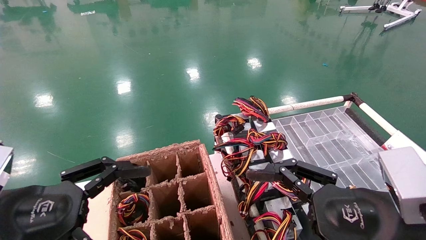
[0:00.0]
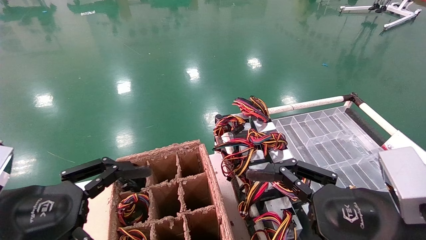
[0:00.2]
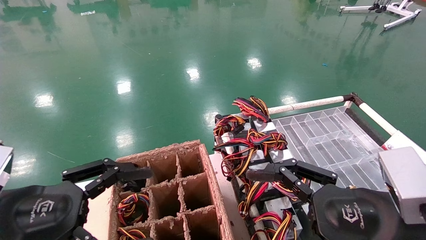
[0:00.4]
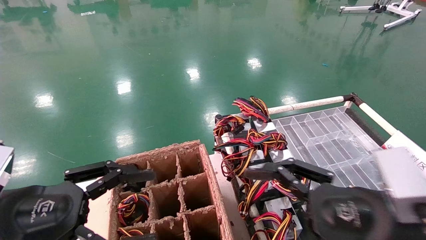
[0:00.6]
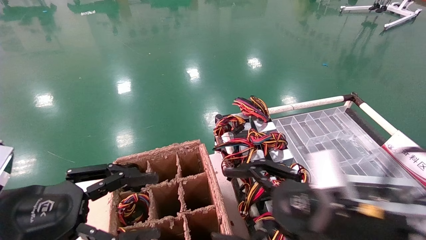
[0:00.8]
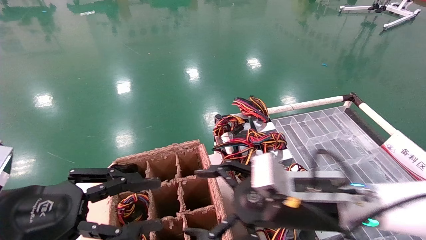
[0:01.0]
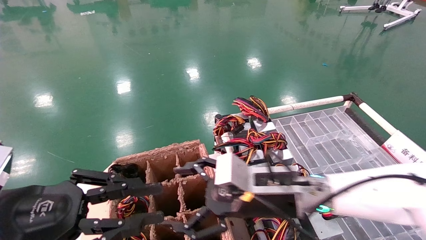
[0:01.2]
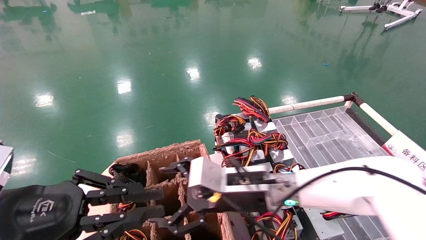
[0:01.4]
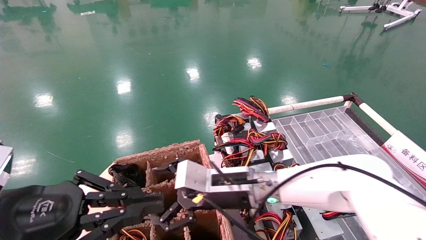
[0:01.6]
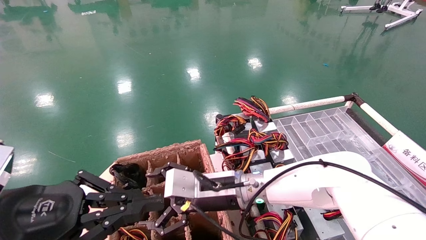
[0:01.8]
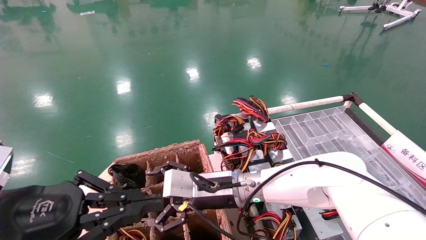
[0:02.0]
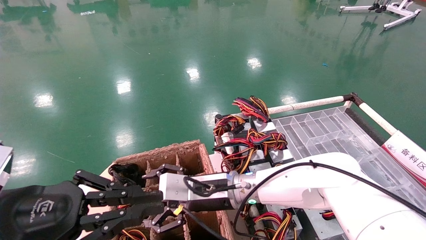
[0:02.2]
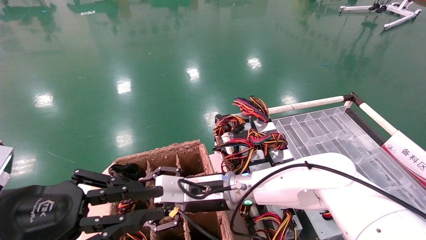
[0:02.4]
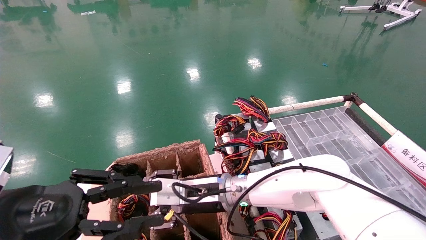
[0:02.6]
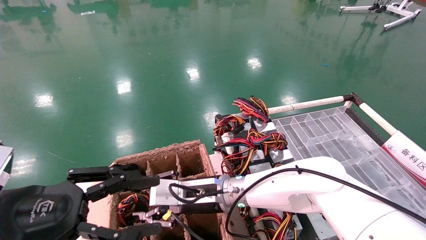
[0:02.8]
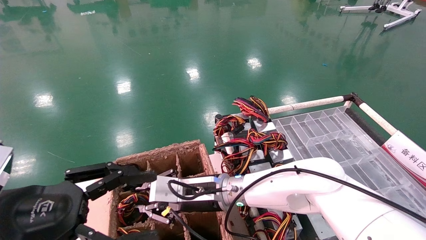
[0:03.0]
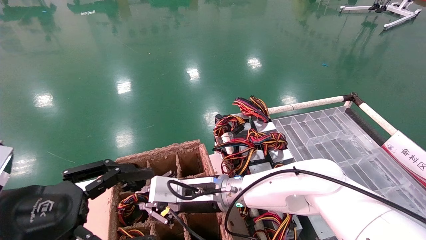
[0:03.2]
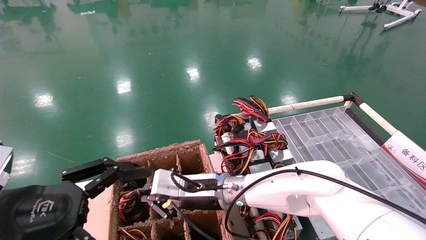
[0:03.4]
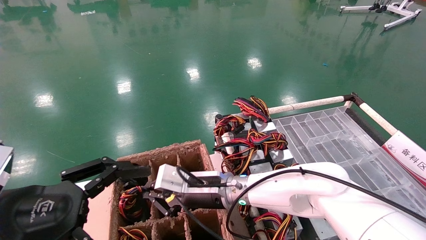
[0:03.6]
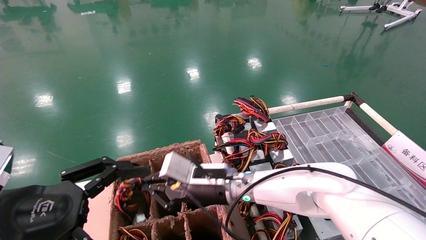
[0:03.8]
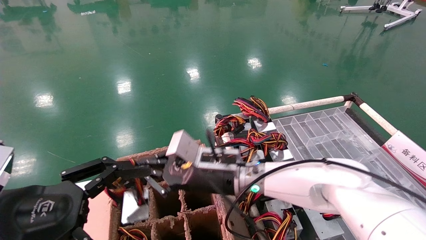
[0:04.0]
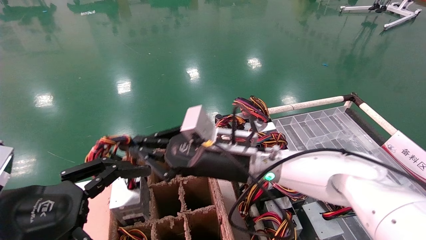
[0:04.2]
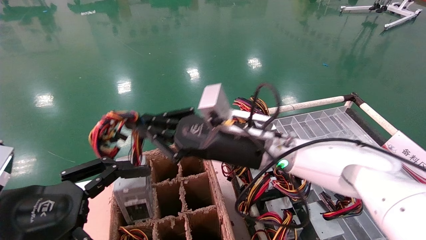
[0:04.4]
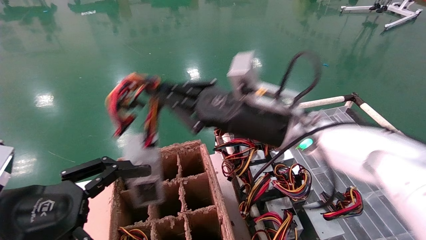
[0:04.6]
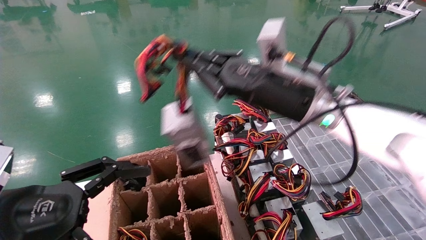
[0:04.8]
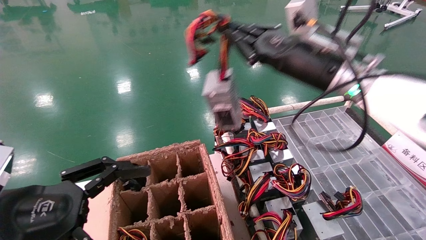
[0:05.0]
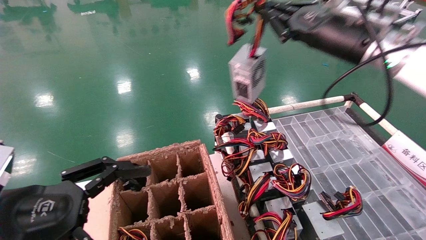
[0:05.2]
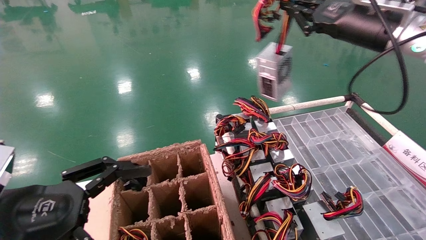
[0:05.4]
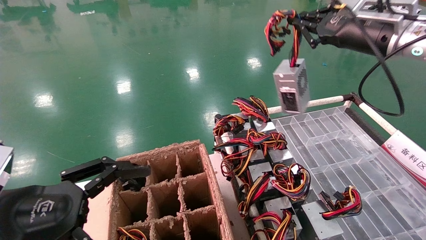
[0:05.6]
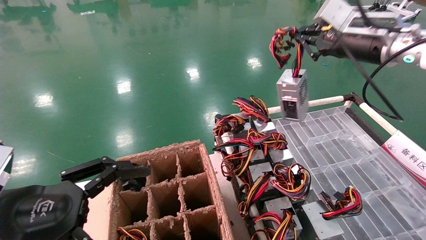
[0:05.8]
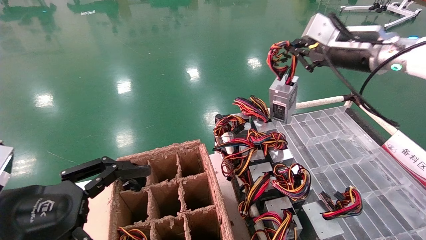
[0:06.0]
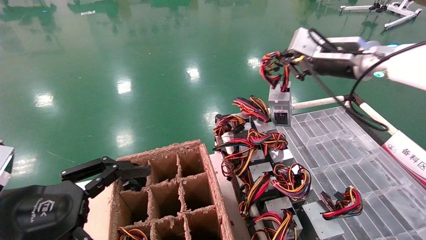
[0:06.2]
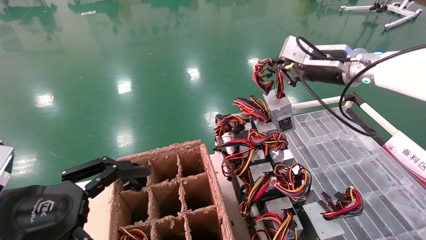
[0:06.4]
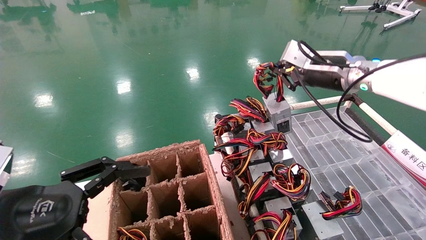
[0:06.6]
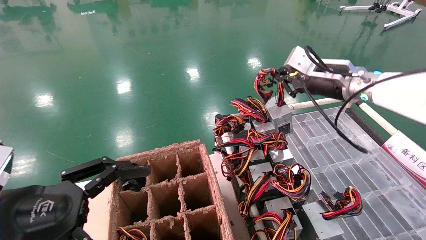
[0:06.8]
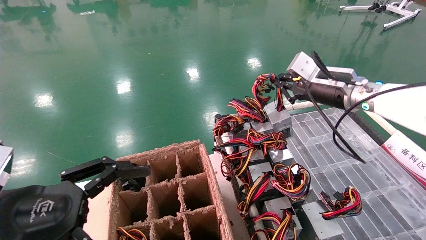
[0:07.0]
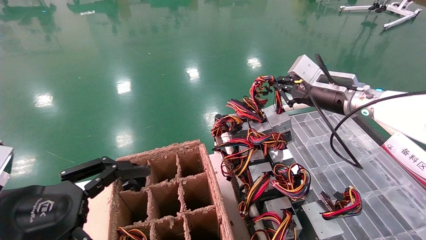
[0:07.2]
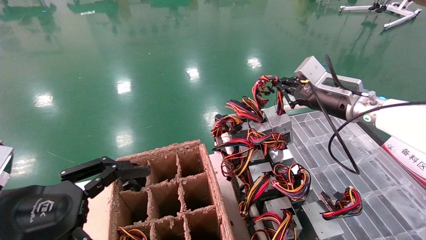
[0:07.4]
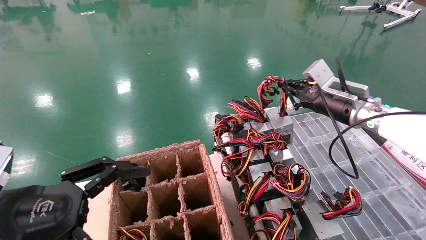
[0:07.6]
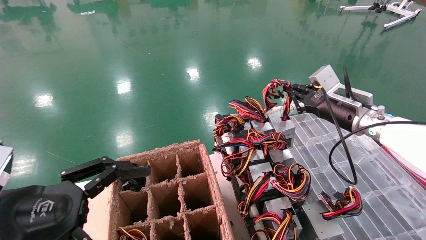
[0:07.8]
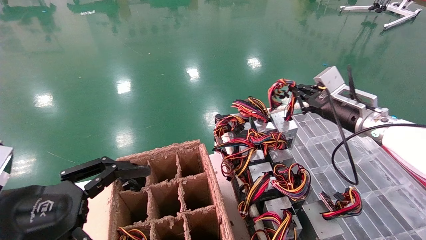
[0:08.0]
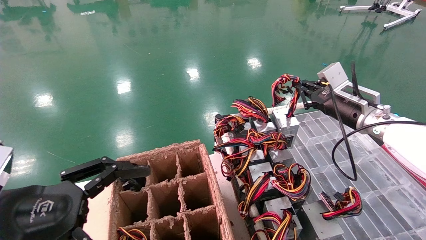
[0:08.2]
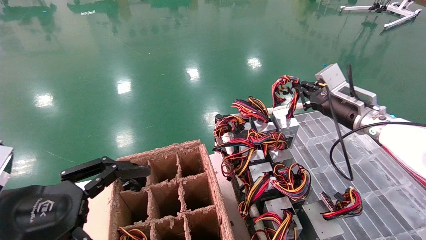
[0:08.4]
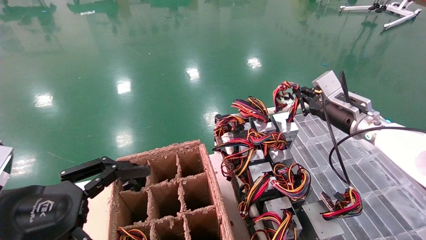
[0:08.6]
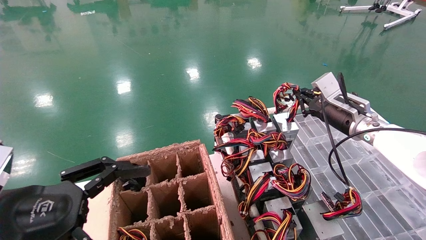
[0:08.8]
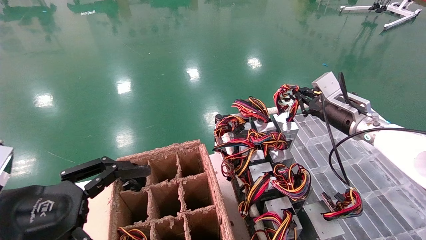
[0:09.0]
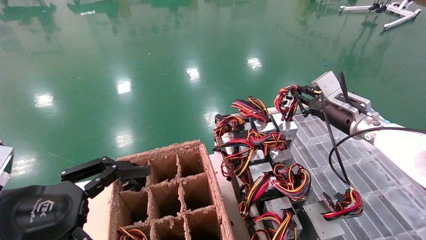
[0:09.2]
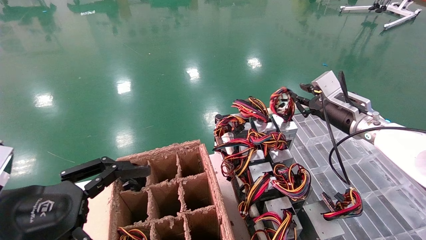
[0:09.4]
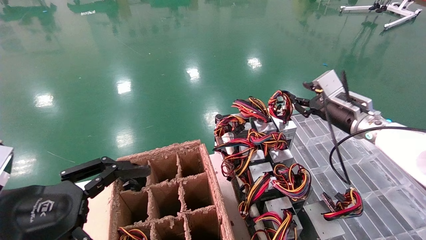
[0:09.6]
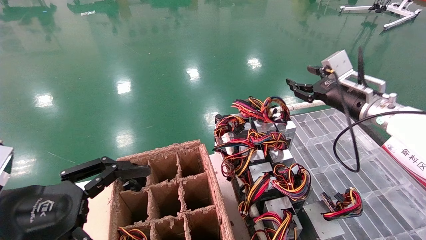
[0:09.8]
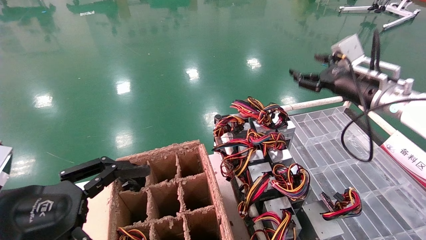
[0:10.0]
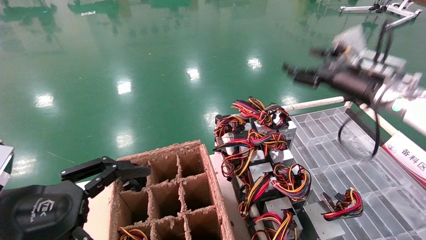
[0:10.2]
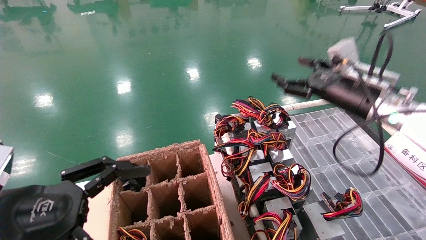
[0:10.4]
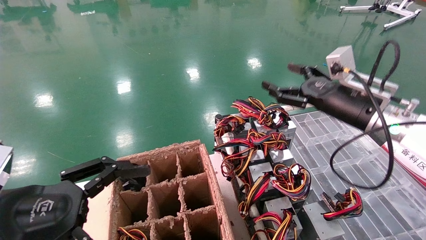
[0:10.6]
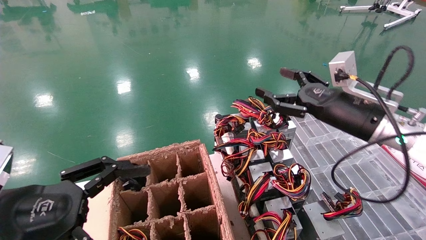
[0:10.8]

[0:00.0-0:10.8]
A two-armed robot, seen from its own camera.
Step, 0:00.8 to 0:03.4: Grab and lift the power supply from the large box.
Step, 0:03.6 to 0:09.2: Place the power supply on the operating table.
0:00.0 to 0:01.6: The right gripper goes about 25 cm to the left and forward. The left gripper closes its fingers.
0:01.6 to 0:03.0: The right gripper shifts some 5 cm to the left, and closes. Meanwhile the left gripper opens its fingers.
0:03.0 to 0:04.6: The right gripper travels upward and to the right by roughly 20 cm, and closes up. The left gripper opens.
0:04.6 to 0:06.2: The right gripper heads to the right and upward, covering some 20 cm.
0:06.2 to 0:07.8: The right gripper goes some 10 cm downward.
0:07.8 to 0:09.2: There are only small adjustments of the grippers.
0:09.2 to 0:10.8: The right gripper is displaced backward by approximately 10 cm, and opens up.

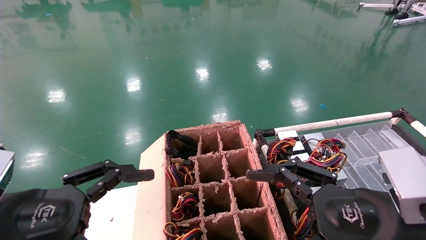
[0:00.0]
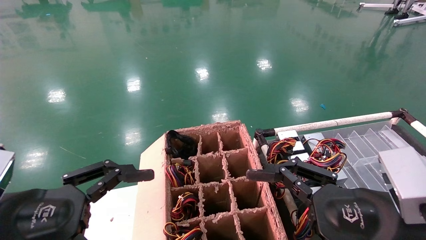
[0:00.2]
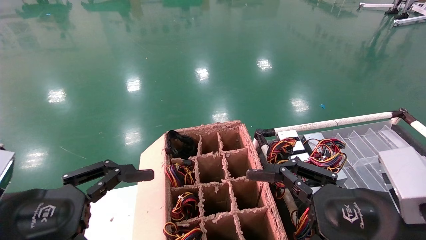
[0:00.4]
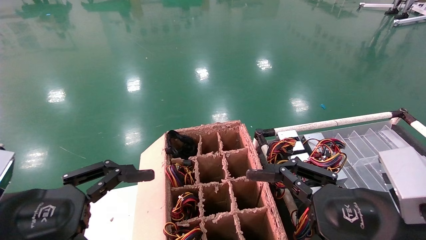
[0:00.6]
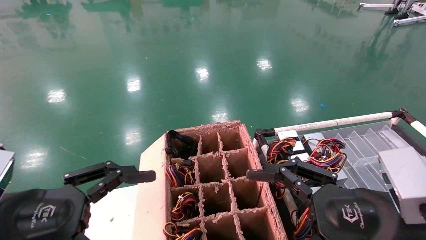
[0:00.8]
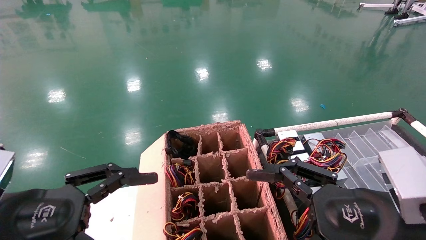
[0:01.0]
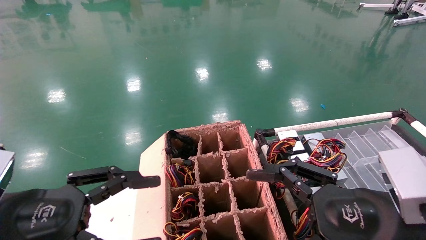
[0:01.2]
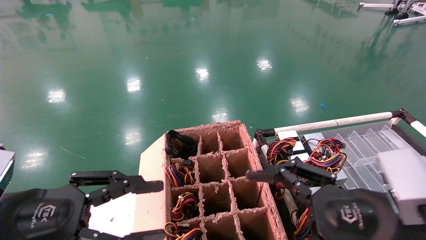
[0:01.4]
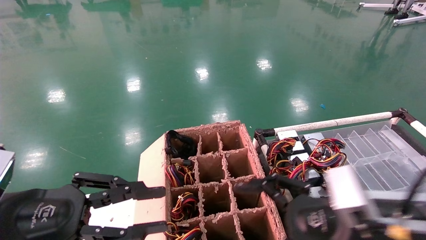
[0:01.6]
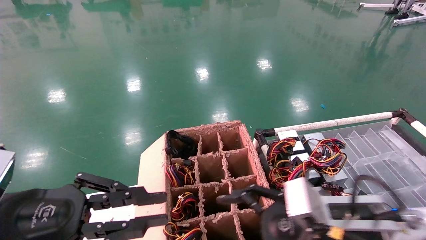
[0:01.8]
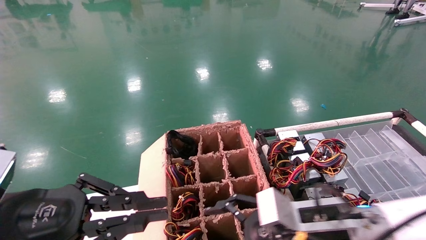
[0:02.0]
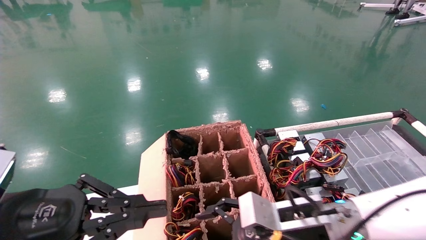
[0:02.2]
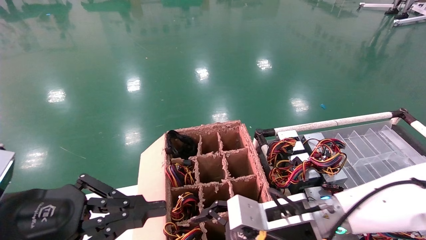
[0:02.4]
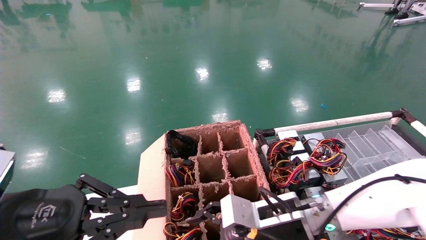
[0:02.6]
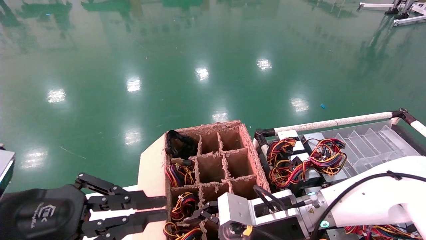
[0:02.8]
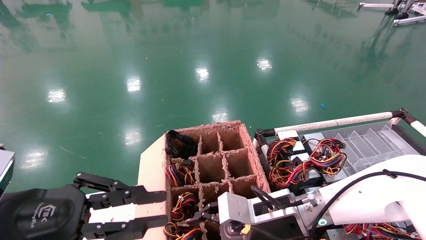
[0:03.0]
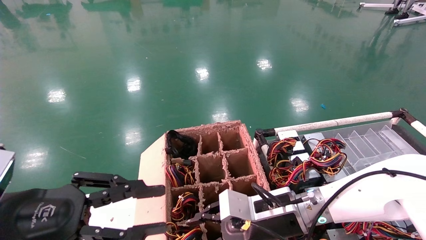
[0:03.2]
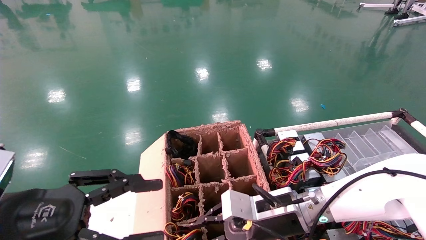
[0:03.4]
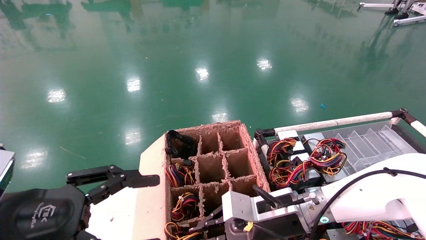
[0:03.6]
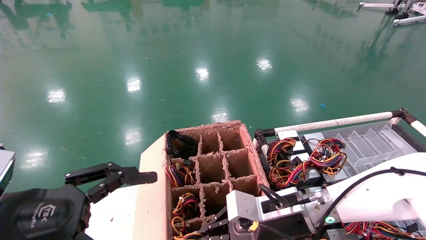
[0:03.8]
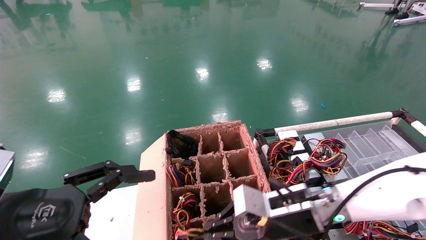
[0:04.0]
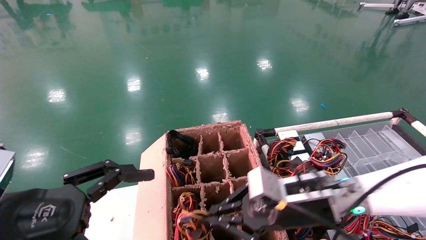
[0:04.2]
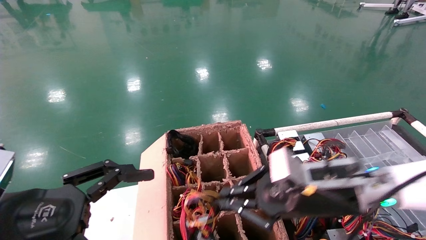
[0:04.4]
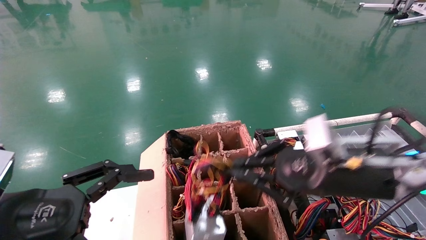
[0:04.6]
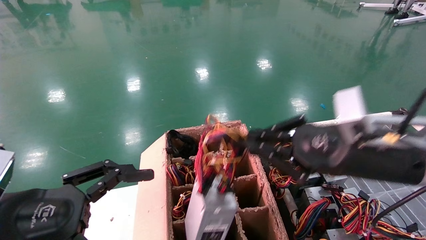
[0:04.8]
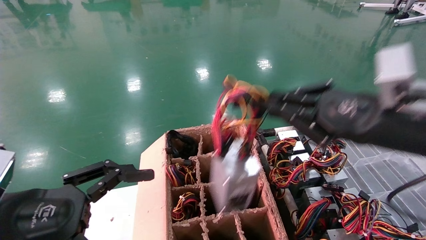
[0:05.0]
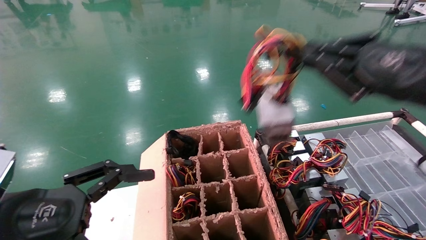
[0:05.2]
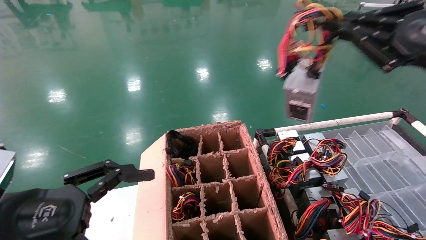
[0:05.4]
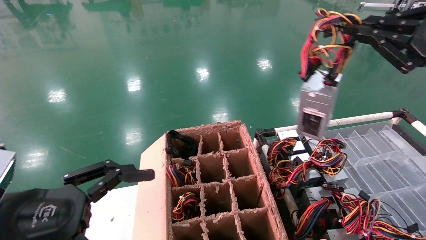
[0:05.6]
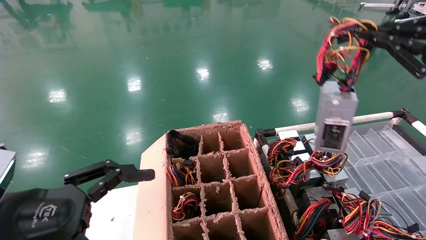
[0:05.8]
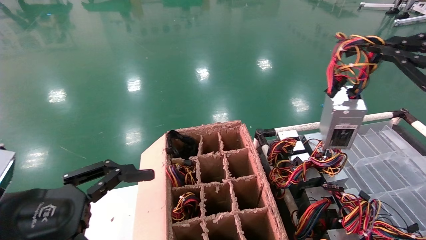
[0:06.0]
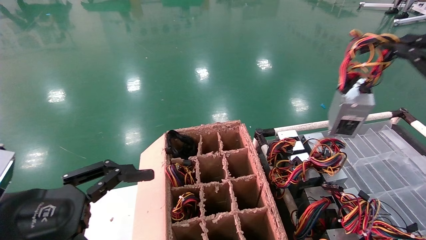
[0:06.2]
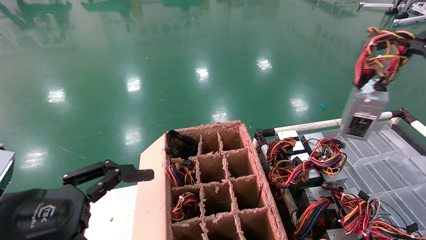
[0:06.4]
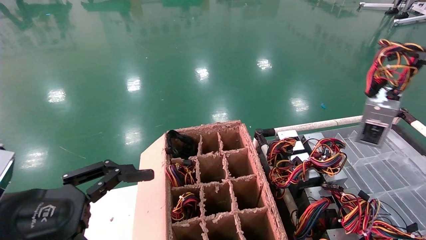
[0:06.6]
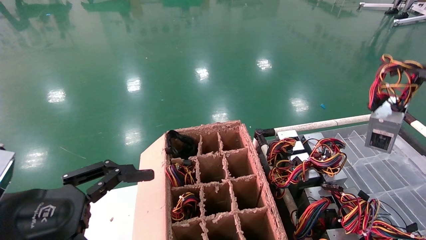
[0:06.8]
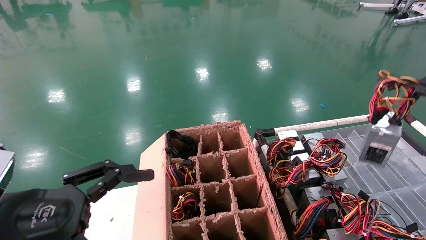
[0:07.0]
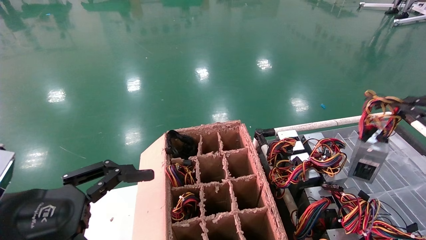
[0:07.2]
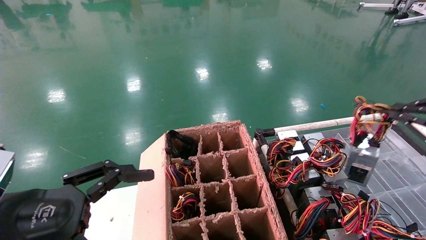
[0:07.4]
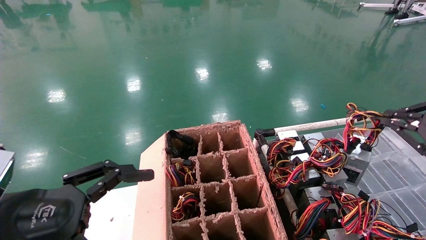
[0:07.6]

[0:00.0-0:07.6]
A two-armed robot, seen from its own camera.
Step, 0:01.0 to 0:04.0: Grab and lift the power supply from the large box.
0:00.0 to 0:01.6: The right gripper ends up about 5 cm from where it was. The left gripper closes its fingers.
0:01.6 to 0:03.0: The right gripper heads forward, to the left and downward, covering approximately 15 cm.
0:03.0 to 0:04.6: The right gripper moves upward, to the right and backward, some 15 cm, and closes its fingers, while the left gripper opens its fingers.
0:04.6 to 0:06.0: The right gripper heads to the right and upward, covering approximately 25 cm.
0:06.0 to 0:07.6: The right gripper travels downward by some 10 cm.
